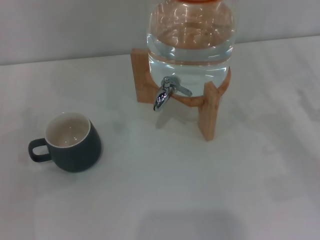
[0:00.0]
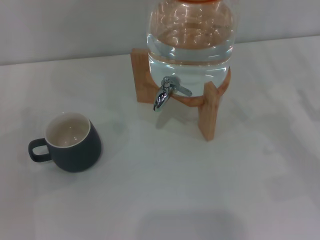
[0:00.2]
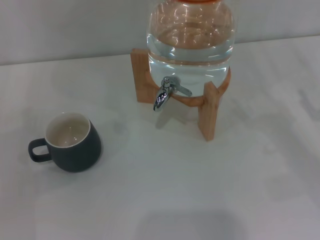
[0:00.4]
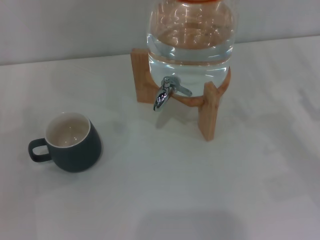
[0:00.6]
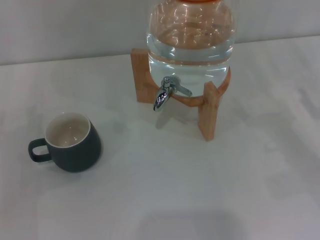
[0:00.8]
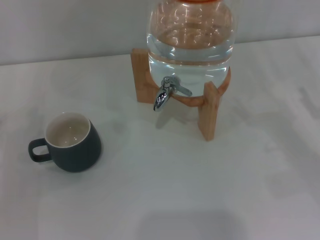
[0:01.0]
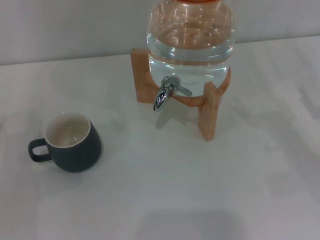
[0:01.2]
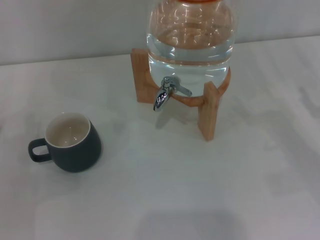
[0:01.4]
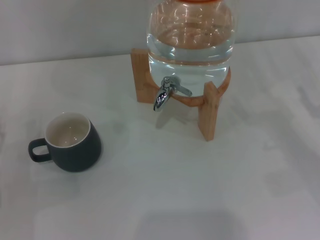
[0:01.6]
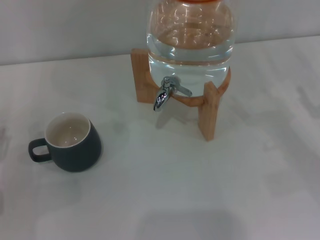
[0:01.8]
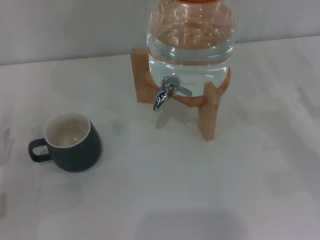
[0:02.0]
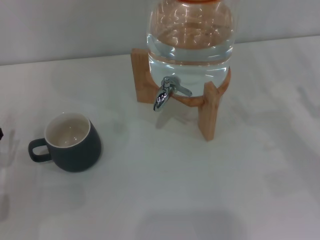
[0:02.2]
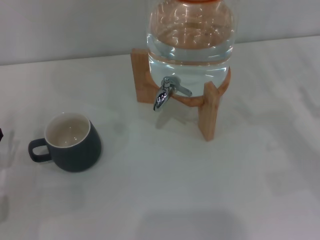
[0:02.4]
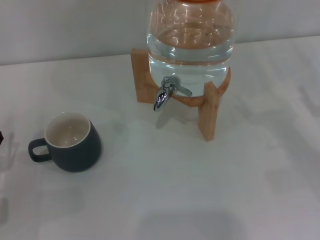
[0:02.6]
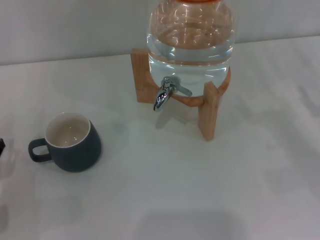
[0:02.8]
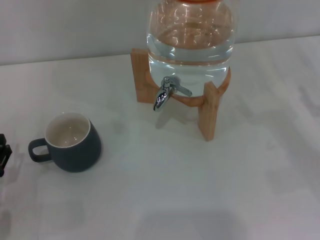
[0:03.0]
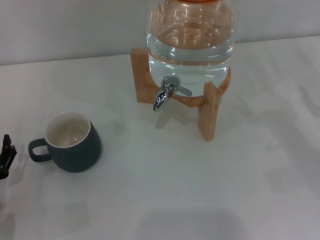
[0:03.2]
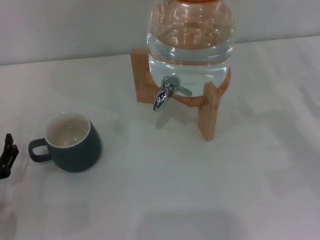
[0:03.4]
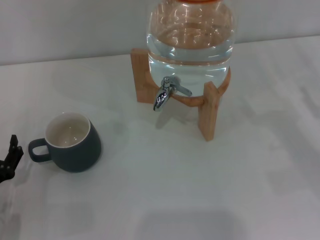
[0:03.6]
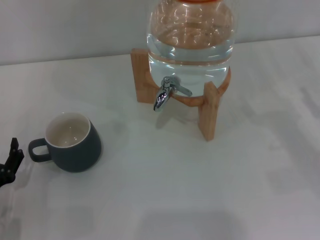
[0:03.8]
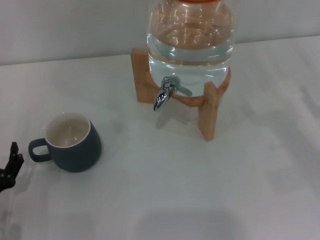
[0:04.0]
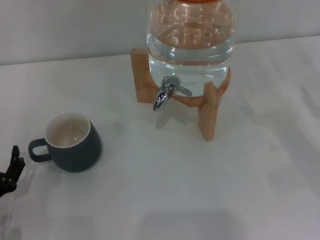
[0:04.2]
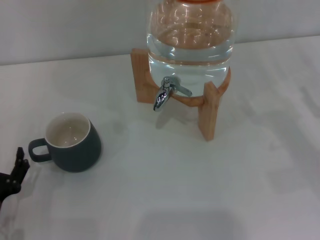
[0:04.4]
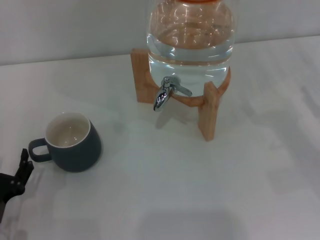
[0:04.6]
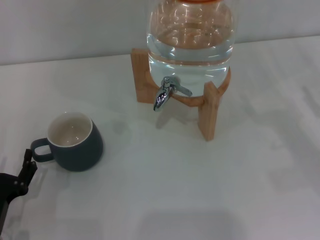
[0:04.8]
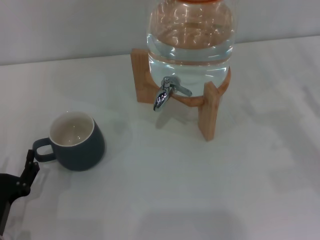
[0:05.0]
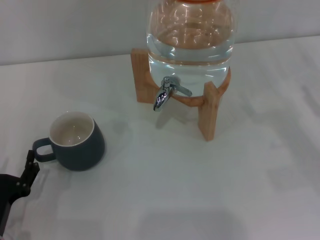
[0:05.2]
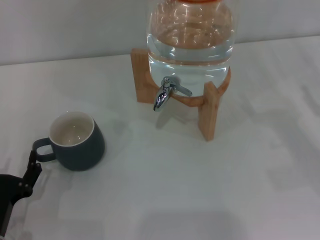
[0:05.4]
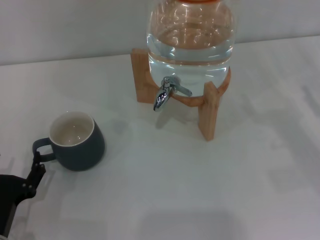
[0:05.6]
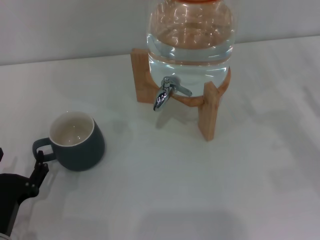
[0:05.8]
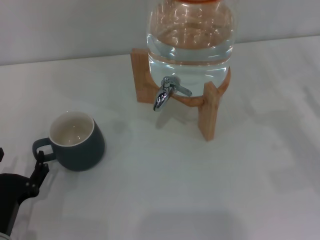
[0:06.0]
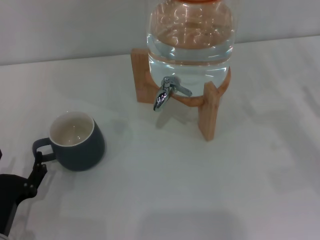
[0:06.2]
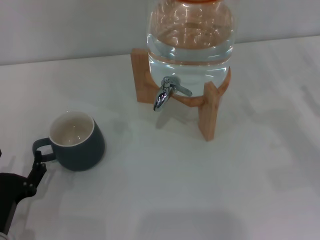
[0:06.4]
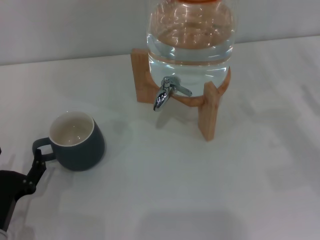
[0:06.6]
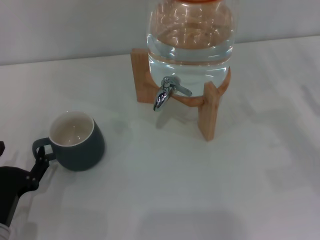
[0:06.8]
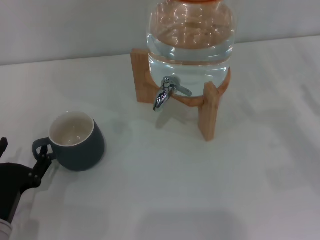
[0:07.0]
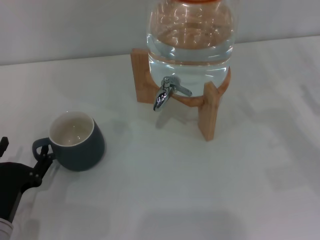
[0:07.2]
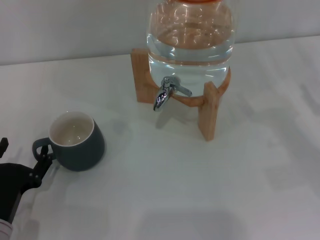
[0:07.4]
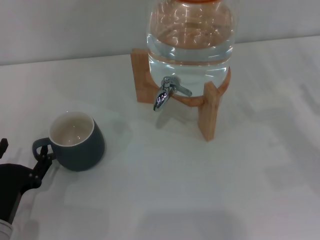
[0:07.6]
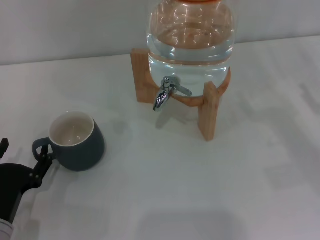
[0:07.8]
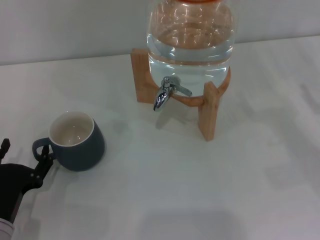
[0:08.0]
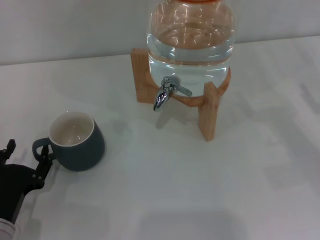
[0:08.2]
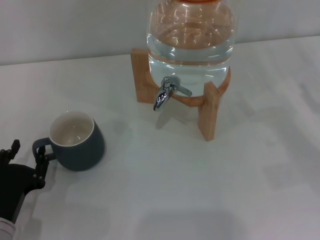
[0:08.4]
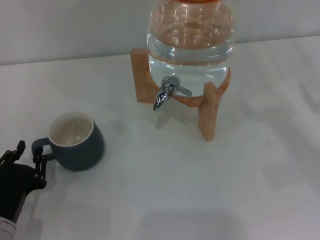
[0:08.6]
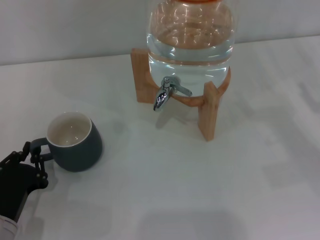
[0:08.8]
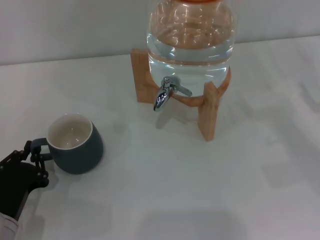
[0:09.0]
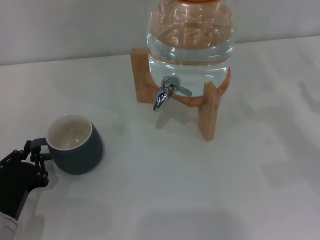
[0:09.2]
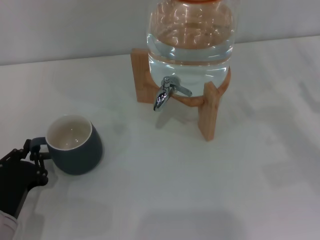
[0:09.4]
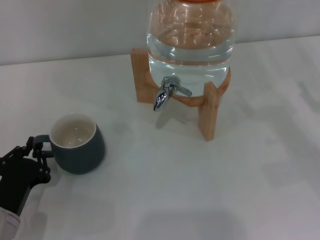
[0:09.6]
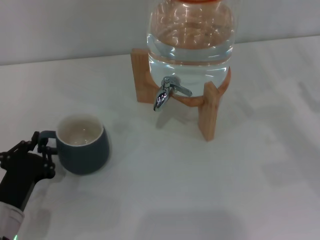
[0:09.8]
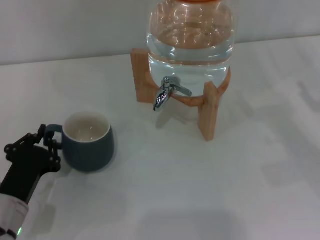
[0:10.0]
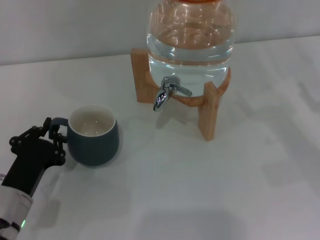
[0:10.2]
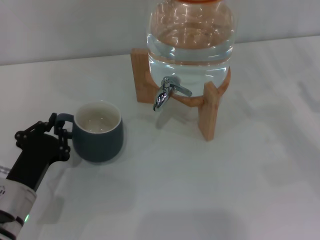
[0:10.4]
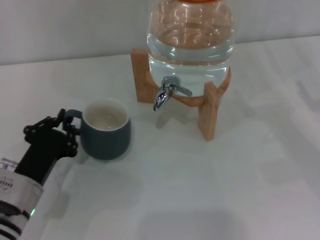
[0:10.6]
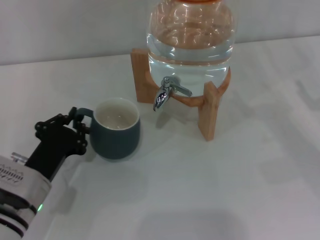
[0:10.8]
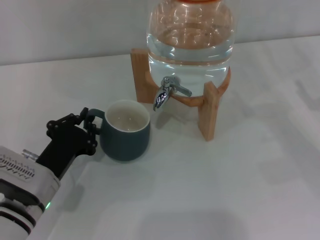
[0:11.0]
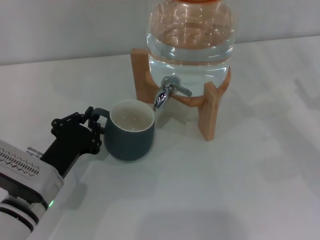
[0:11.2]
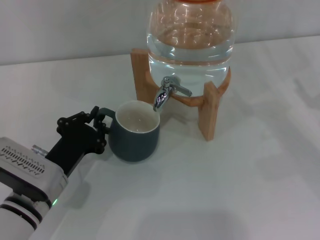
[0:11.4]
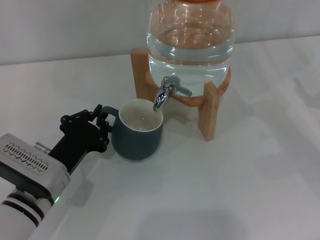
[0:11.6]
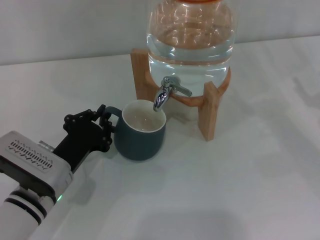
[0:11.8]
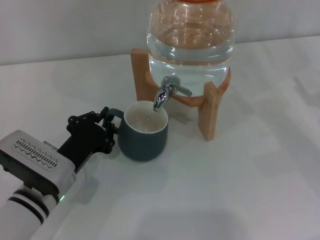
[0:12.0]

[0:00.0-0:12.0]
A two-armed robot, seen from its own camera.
Task of the whole recording: the left gripper pick up the black cup and place it horizontally under the faucet, the right gripper turn on the faucet to fill the cup, and then turn off the faucet.
0:01.6 to 0:03.0: The left gripper changes place by about 5 cm.
0:03.0 to 0:07.6: There are only small adjustments of the grippers.
0:07.6 to 0:09.0: The left gripper closes its fingers.
0:09.0 to 0:10.4: There are only small adjustments of the grippers.
0:10.4 to 0:12.0: The left gripper moves approximately 5 cm.

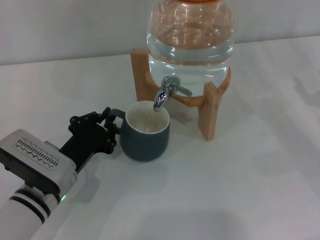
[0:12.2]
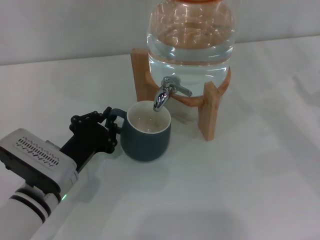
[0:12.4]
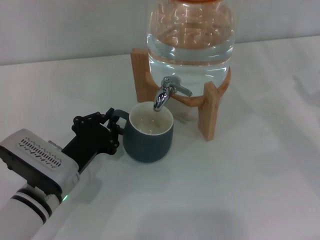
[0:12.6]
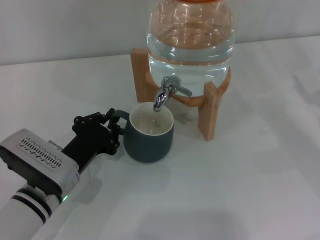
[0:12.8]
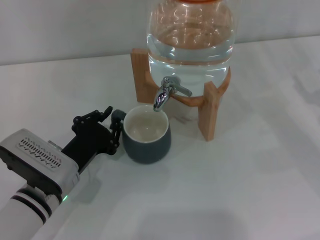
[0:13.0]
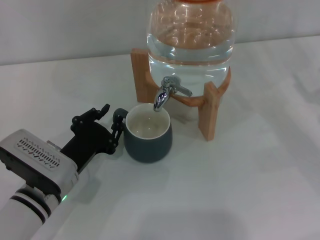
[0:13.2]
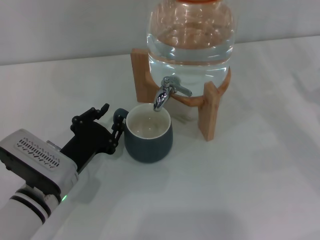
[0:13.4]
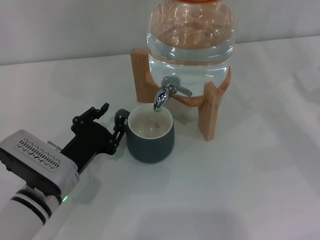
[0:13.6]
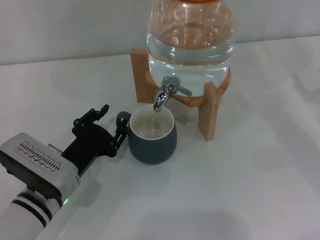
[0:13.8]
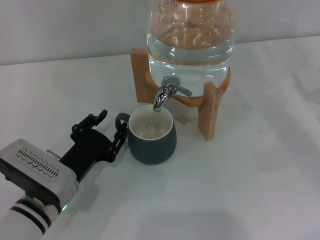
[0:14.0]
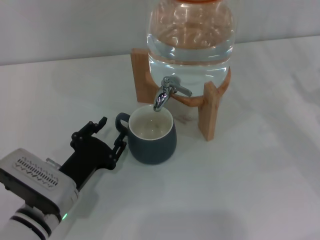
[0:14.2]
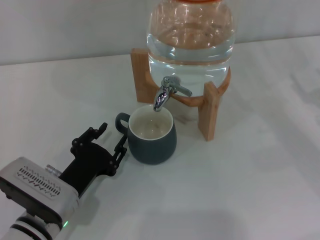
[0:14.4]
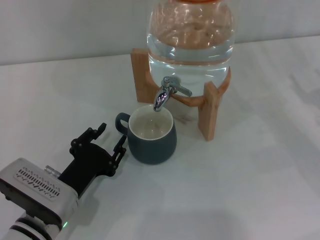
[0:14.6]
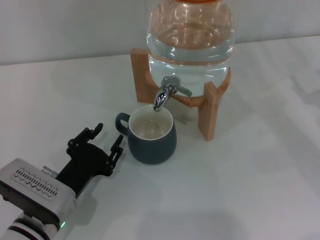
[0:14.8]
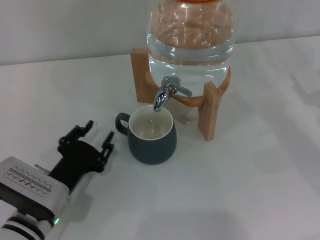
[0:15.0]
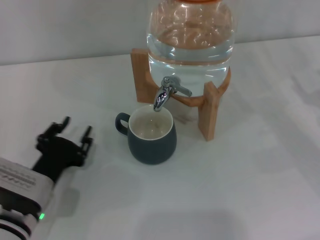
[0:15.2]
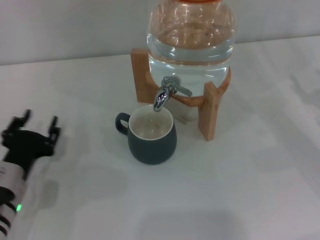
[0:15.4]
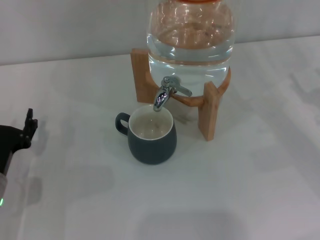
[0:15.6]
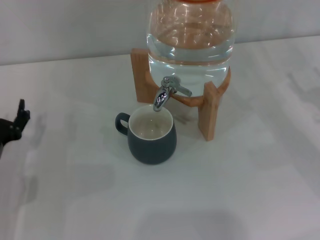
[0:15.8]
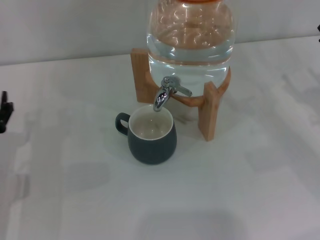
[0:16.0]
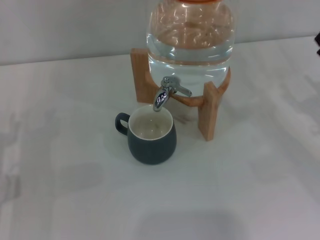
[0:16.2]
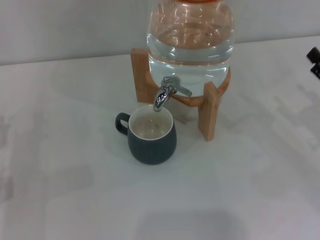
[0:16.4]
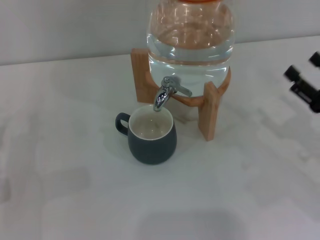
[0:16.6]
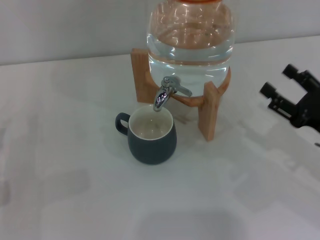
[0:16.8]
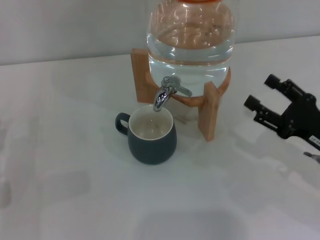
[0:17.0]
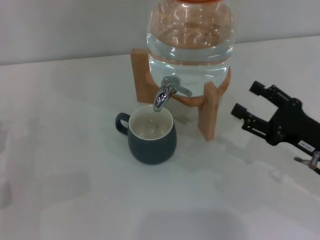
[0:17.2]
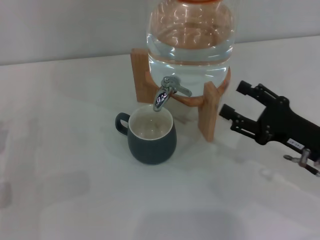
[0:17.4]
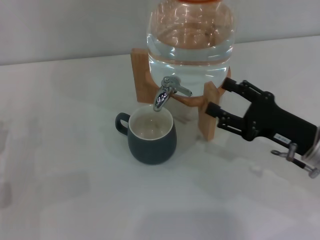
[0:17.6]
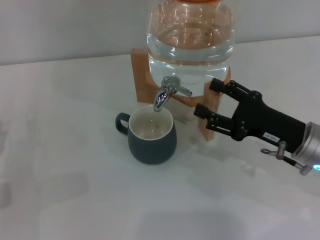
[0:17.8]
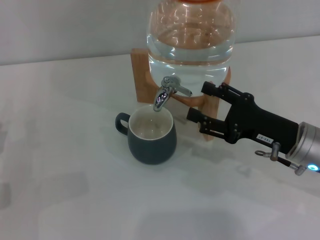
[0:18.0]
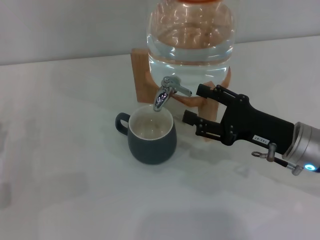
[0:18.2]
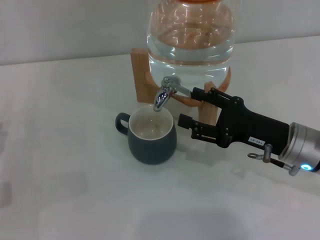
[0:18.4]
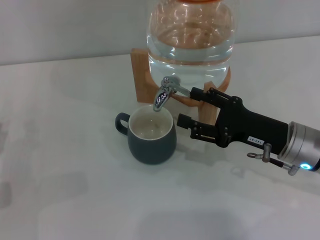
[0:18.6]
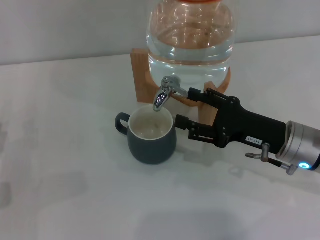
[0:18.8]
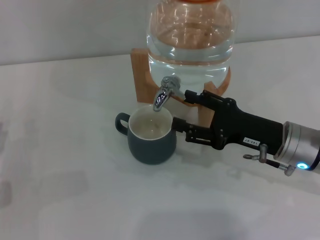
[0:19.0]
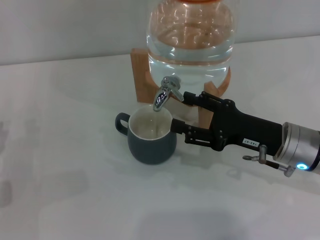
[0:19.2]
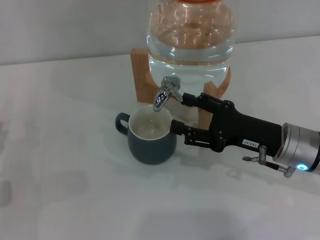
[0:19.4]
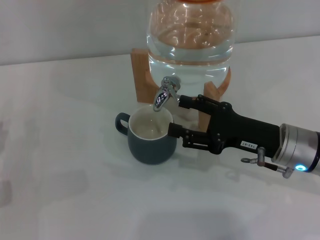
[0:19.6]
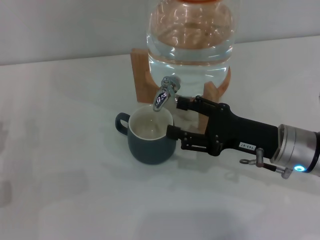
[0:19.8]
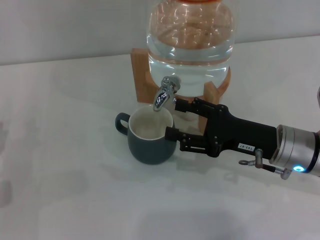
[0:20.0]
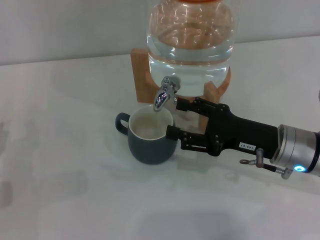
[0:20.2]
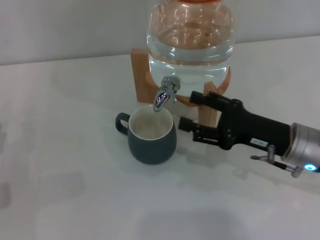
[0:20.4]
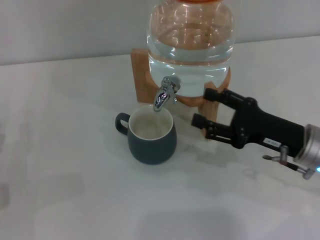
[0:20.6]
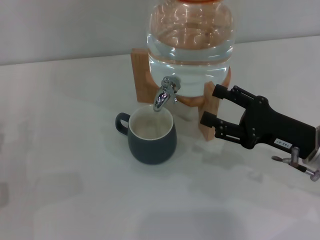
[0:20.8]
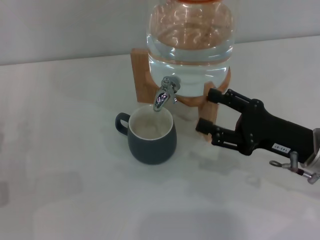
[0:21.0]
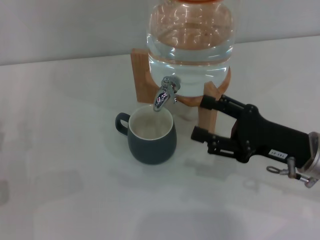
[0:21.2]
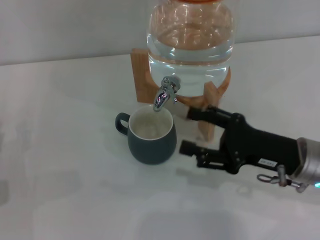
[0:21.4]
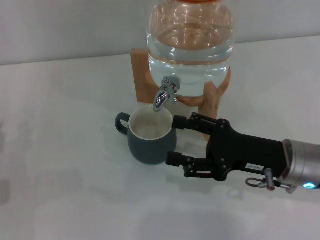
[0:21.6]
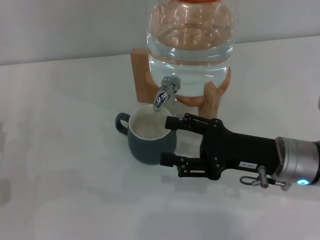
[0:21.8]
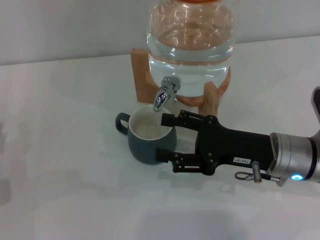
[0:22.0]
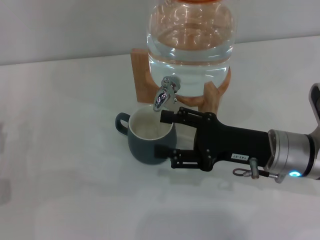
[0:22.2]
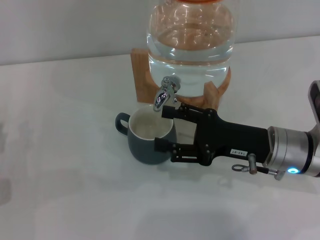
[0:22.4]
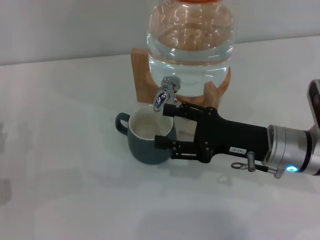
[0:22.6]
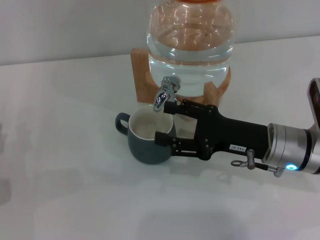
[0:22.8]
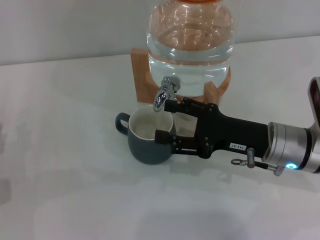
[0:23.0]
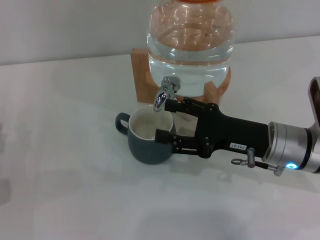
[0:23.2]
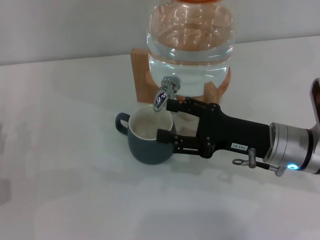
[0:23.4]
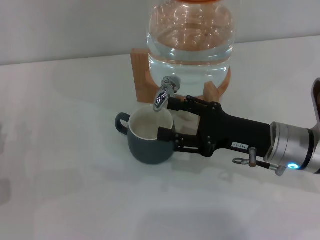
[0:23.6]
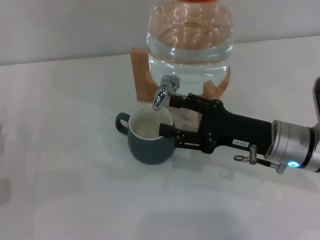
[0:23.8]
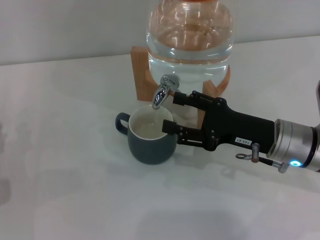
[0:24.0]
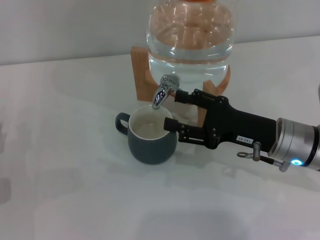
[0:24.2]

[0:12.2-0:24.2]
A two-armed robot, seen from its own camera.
Task of the whole recording: the left gripper pick up the black cup and place it horizontally under the faucet, the right gripper turn on the faucet to fill the cup, and then turn off the faucet.
Step, 0:12.2 to 0:15.0: Move the cup beneath the water dispenser nozzle with the left gripper.
Step, 0:15.2 to 0:22.4: Open the dispenser valve and fill the cup with water with the right gripper.
0:12.2 to 0:13.8: The left gripper opens.
0:13.8 to 0:15.2: The grippers stay close to where they were, moving slightly.
0:15.2 to 0:16.6: The left gripper shifts roughly 10 cm to the left, and opens. Meanwhile the right gripper changes place by approximately 5 cm.
0:16.6 to 0:18.2: The right gripper travels to the left by approximately 10 cm.
0:18.2 to 0:21.2: The grippers move only a little.
0:21.2 to 0:22.6: The right gripper ends up about 5 cm from where it was.
0:22.6 to 0:24.2: The grippers move only a little.
